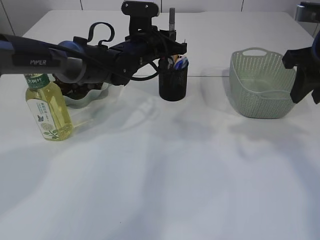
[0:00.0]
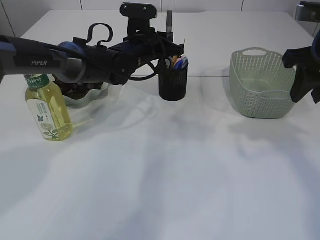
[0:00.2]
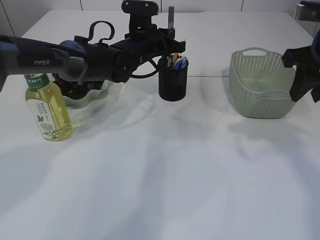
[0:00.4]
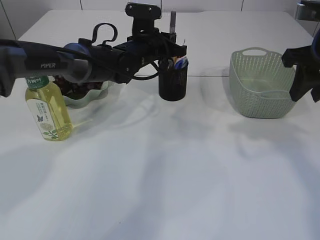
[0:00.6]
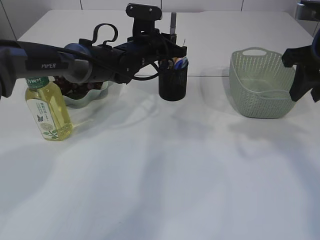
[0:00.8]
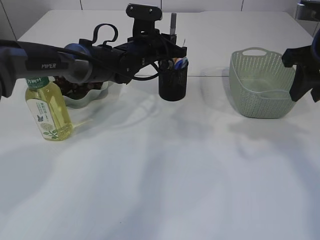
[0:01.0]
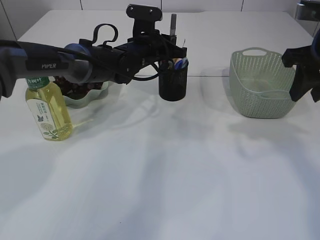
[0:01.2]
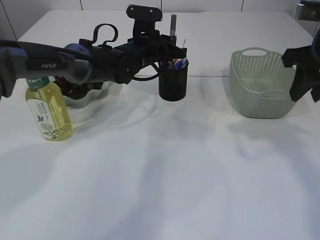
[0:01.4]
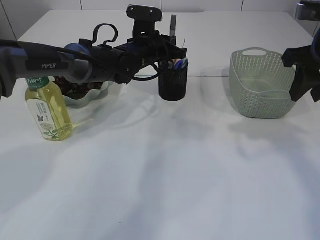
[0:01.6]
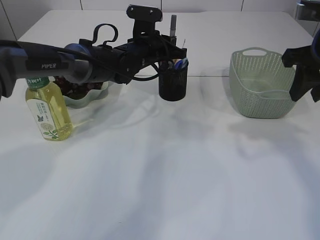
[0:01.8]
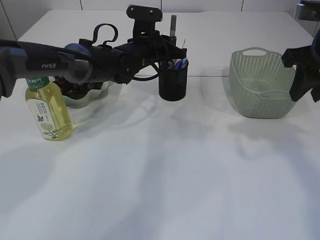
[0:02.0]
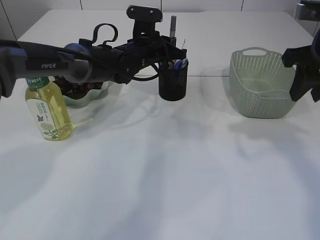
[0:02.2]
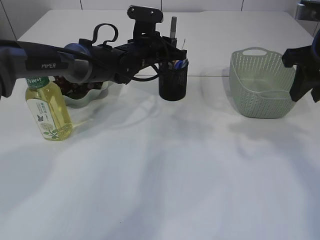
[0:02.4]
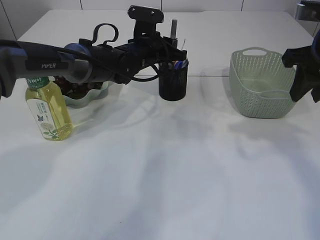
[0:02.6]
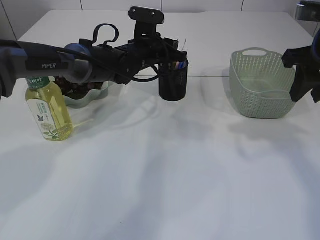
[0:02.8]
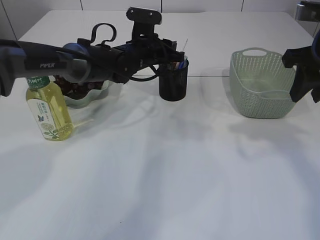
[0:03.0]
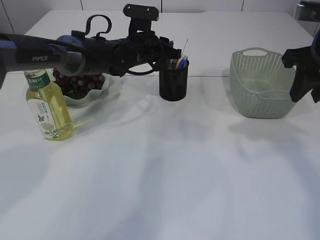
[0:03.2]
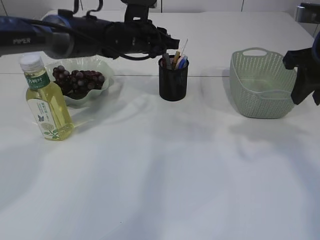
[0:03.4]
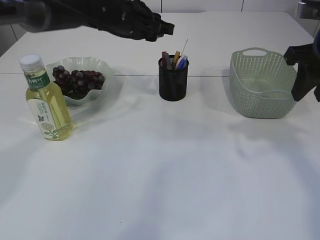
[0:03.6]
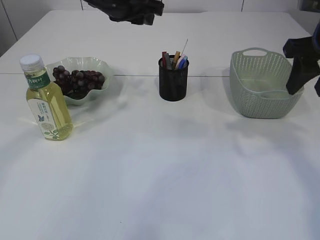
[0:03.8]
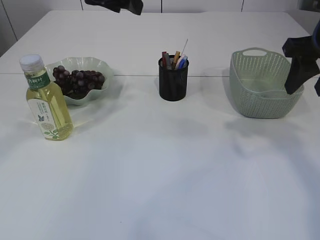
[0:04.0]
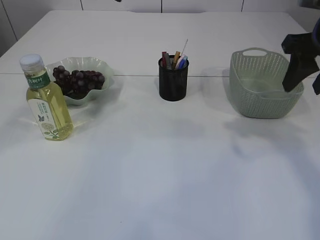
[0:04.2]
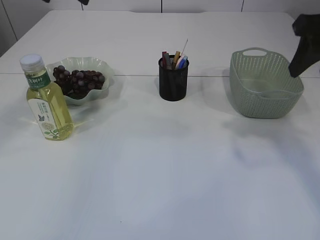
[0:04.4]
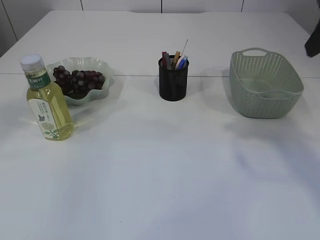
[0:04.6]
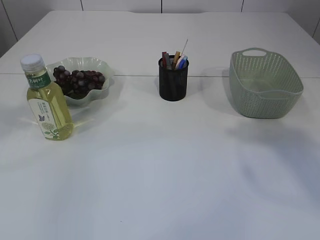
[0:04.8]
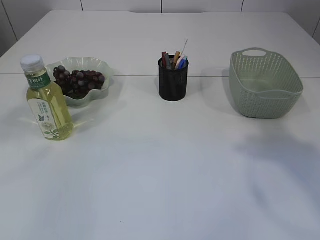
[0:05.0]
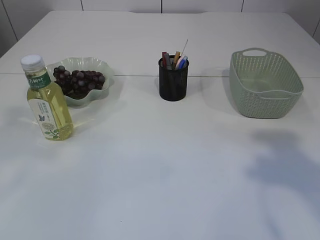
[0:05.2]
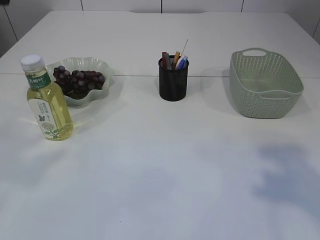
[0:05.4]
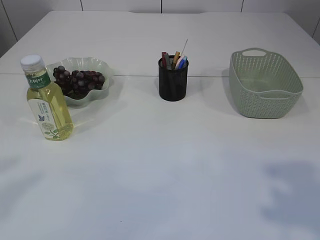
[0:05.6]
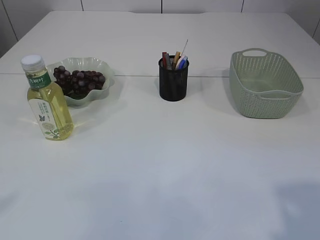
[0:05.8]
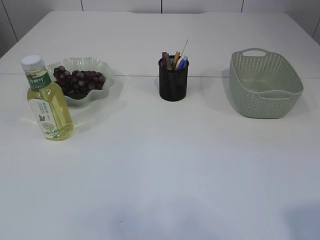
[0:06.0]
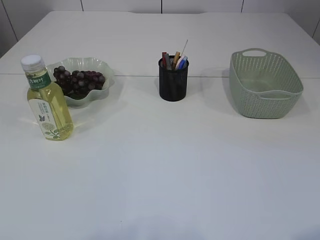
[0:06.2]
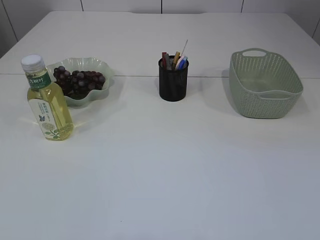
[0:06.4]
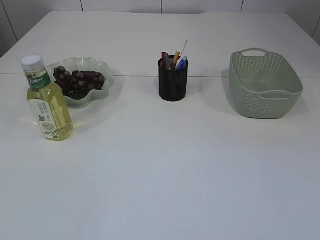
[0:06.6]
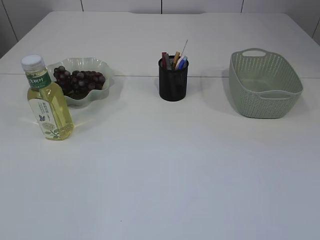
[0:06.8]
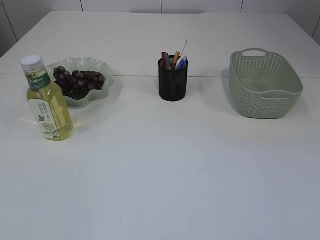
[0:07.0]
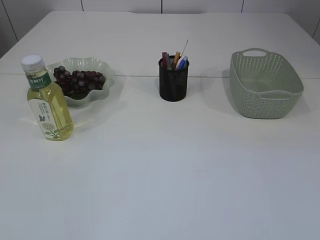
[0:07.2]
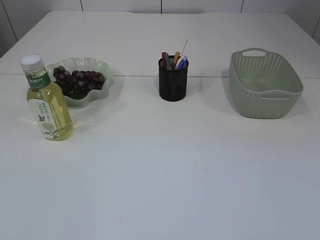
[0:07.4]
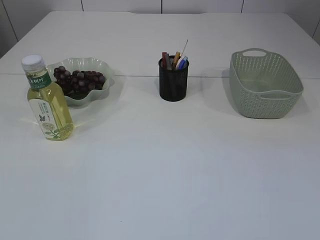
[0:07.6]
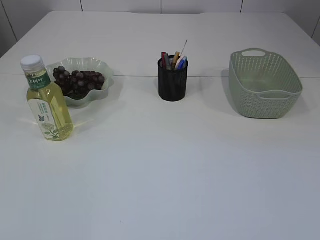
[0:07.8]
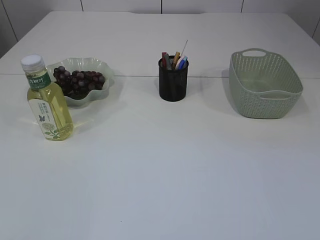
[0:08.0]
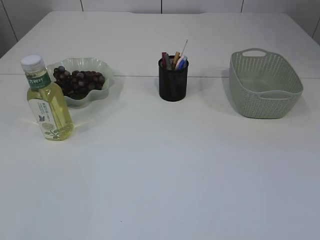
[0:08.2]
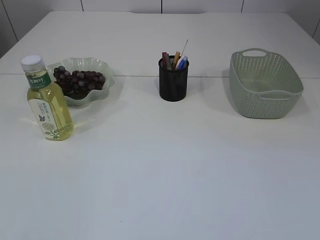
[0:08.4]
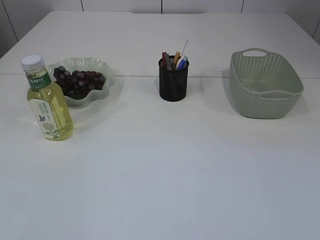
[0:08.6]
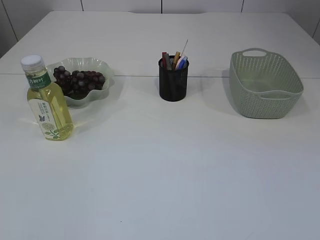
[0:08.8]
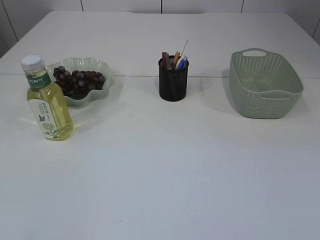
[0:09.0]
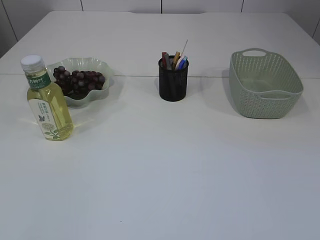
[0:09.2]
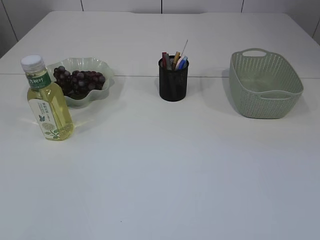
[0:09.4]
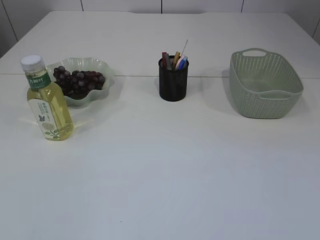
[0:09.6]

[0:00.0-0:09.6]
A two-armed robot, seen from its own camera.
Step, 0.0 to 3.4 s: place the silver glue into the pen holder.
0.0 to 1.6 s: The grippers move only a little.
1.6 to 3.2 s: The left gripper opens up.
3.2 to 4.8 s: The left gripper heads upward, backward and to the left, covering approximately 35 cm, and opens up. Meanwhile the right gripper heads upward and backward, covering approximately 15 cm.
4.8 to 6.4 s: The right gripper travels backward and downward by about 25 cm.

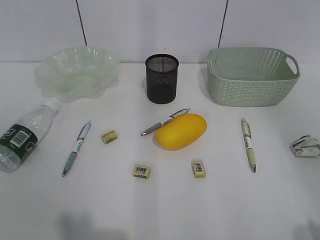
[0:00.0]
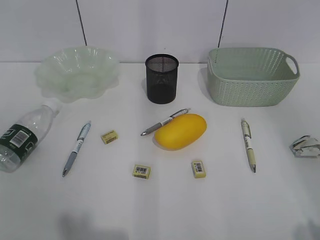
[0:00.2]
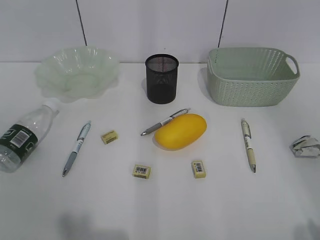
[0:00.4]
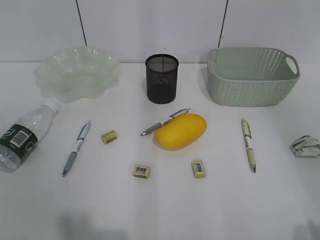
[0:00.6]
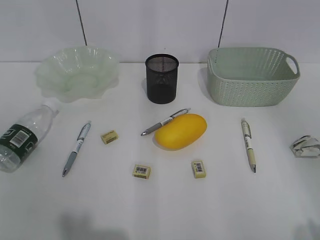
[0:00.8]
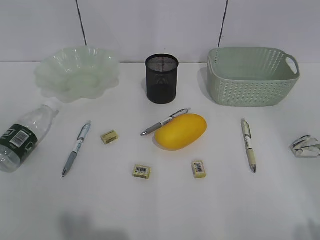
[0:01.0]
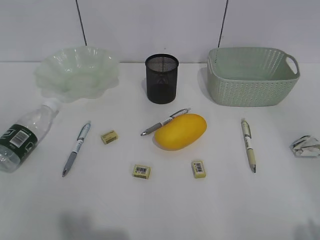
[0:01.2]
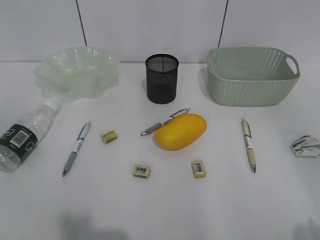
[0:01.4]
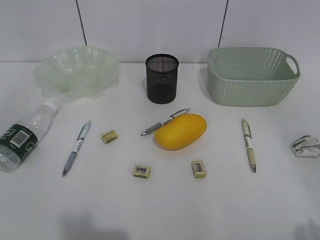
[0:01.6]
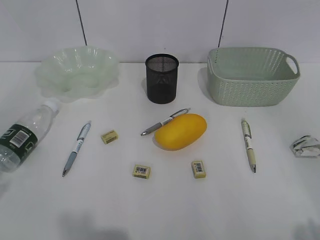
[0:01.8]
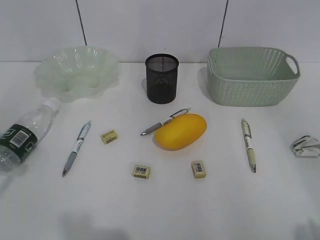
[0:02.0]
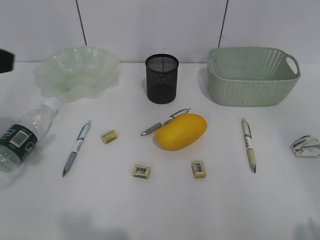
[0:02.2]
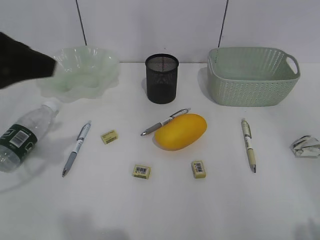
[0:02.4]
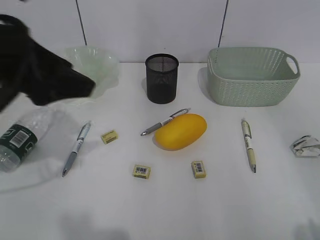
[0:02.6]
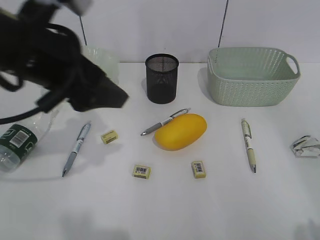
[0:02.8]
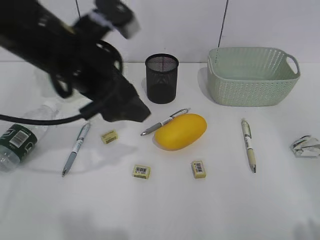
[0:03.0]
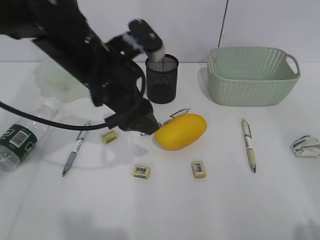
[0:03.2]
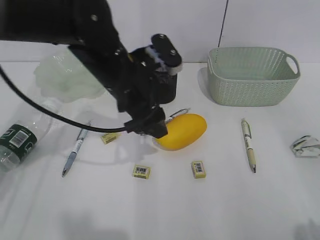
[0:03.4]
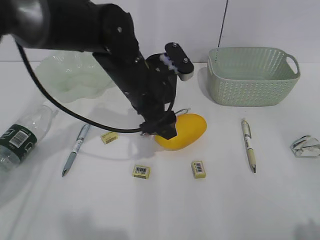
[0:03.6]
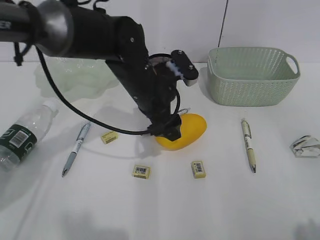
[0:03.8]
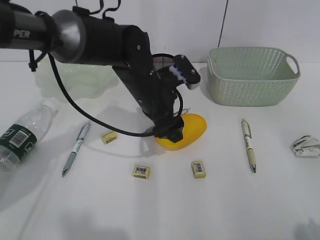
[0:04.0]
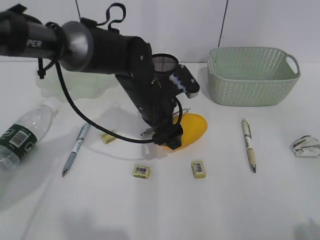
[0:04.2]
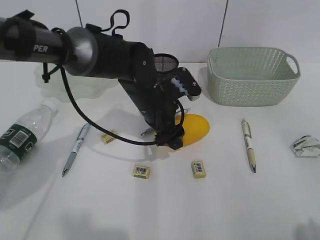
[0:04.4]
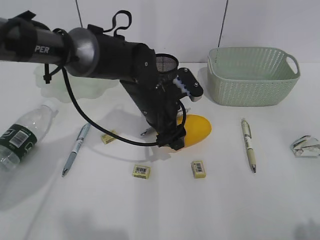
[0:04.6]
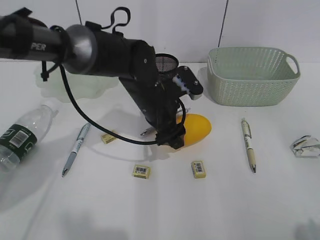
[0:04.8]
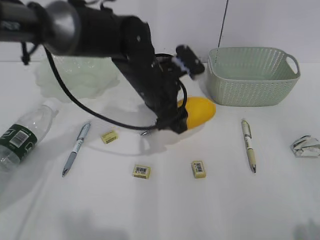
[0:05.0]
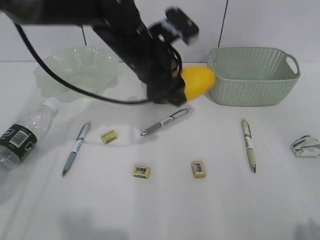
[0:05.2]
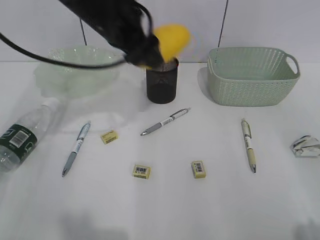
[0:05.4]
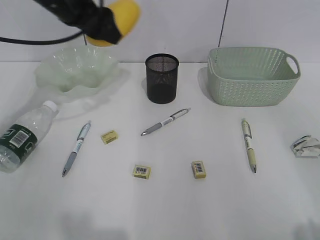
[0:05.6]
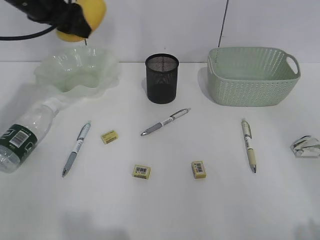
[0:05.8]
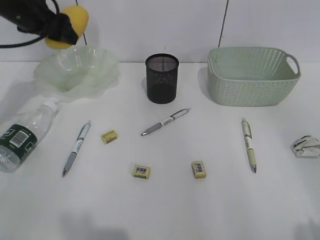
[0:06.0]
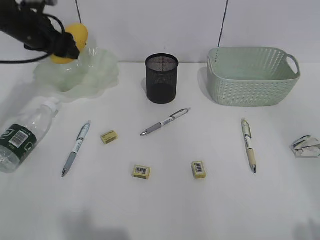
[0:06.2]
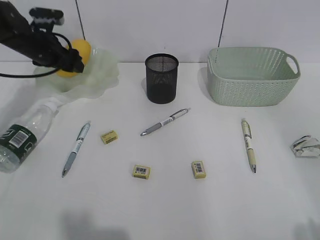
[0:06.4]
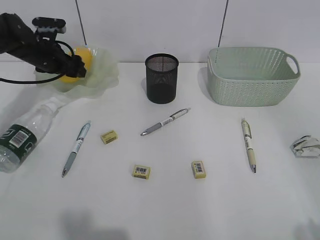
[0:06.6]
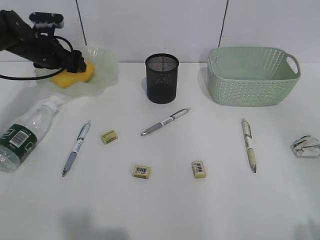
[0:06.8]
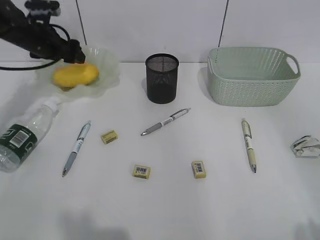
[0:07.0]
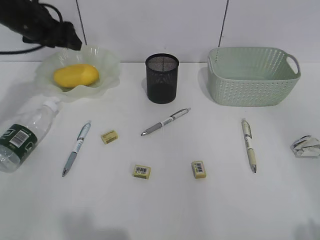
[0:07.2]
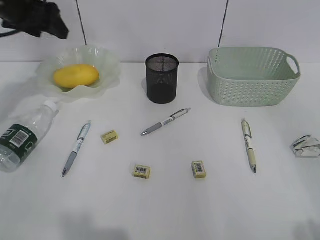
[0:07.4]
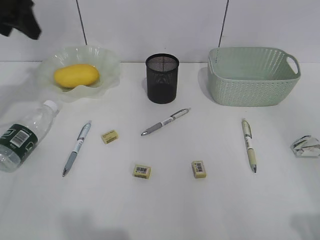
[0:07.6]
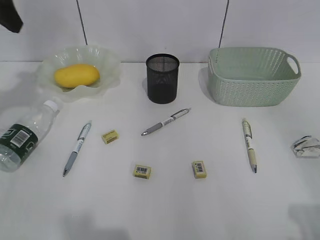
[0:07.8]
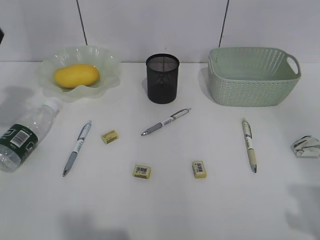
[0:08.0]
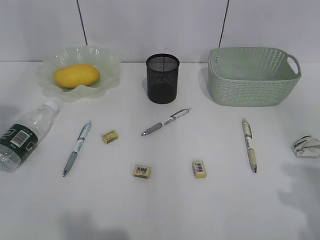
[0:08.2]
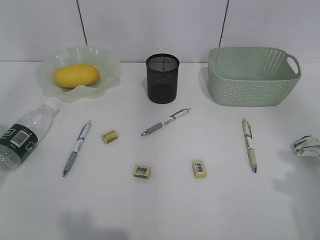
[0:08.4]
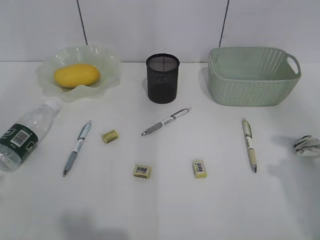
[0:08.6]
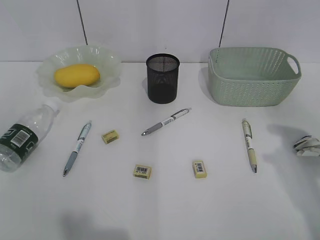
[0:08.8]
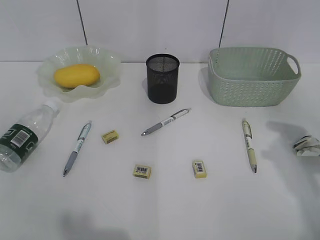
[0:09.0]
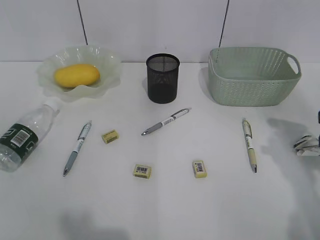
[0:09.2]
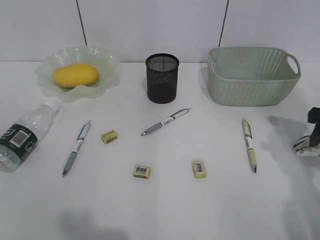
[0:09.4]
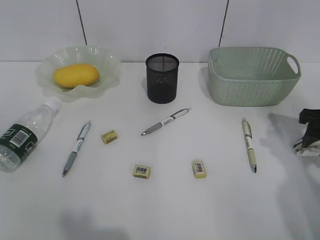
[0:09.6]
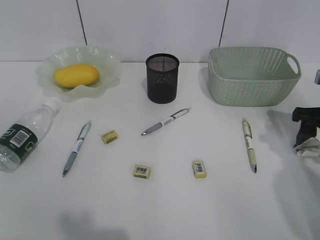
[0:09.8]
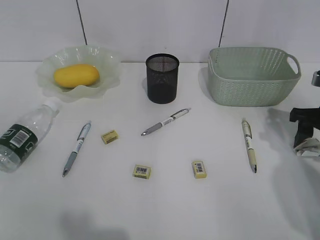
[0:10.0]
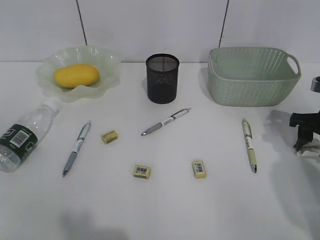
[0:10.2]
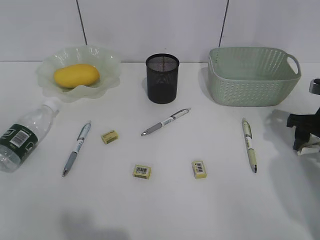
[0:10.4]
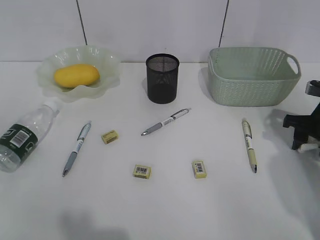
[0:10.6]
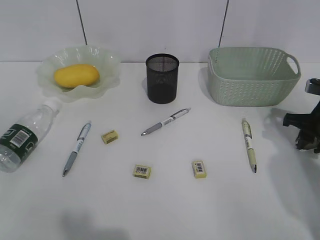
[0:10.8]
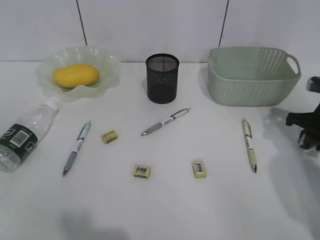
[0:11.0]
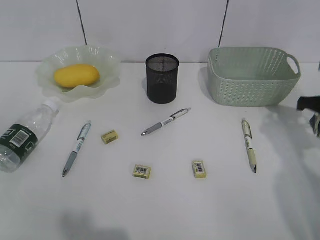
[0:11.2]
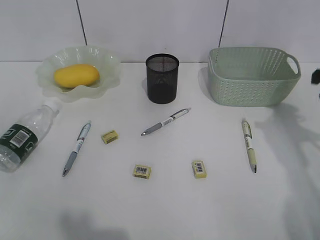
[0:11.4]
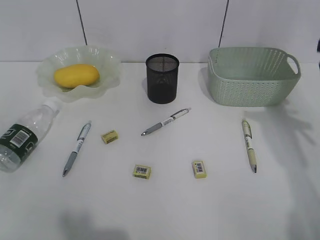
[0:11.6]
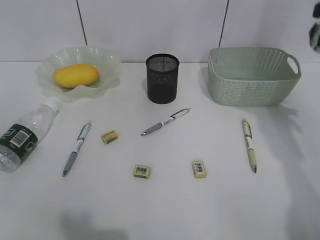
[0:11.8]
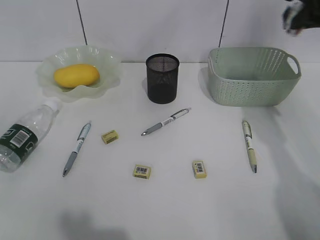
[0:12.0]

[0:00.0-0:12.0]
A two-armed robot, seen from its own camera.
Step, 2.2 to 4.6 s: Grasp the mango with left gripper.
Step, 4.8 to 7.0 s: Place the mango in the plate with left gripper.
Step, 7.2 to 11.0 s: Grasp the waste paper with right gripper.
1.6 to 3.0 s: The left gripper is displaced to the right and forward by some 30 cm.
3.0 to 4.4 s: The left gripper shifts roughly 20 cm downward, to the right and forward.
4.4 to 6.0 s: The left gripper goes approximately 30 cm to the left, upward and forward.
6.0 to 7.6 s: The left gripper shifts some 10 cm upward and backward.
7.6 to 9.0 s: The left gripper heads backward, covering approximately 40 cm. The right gripper travels forward by about 25 cm.
9.0 to 10.4 s: The right gripper goes about 15 cm downward and forward.
10.4 to 12.0 s: The right gripper shifts about 20 cm upward, and closes its fingers.

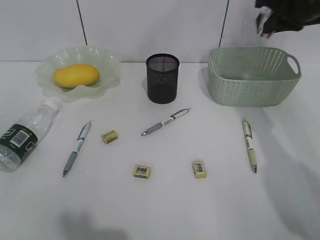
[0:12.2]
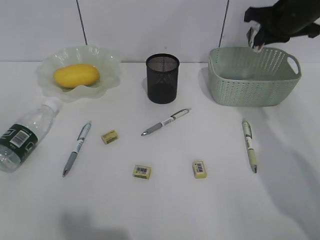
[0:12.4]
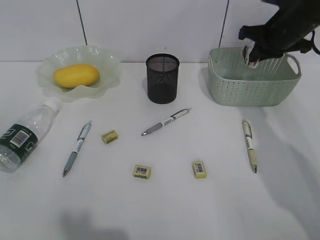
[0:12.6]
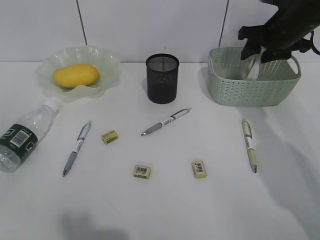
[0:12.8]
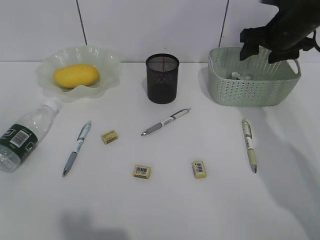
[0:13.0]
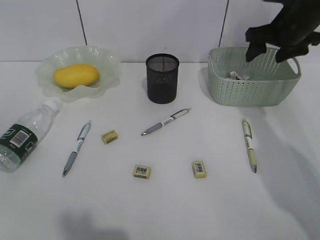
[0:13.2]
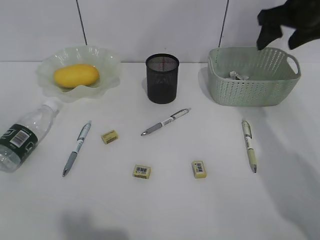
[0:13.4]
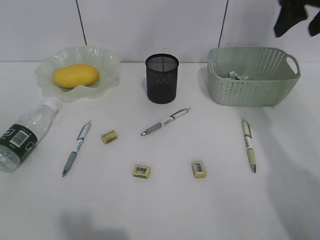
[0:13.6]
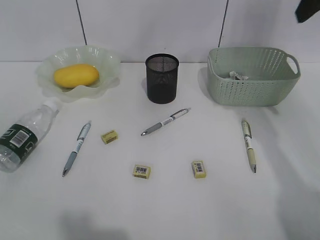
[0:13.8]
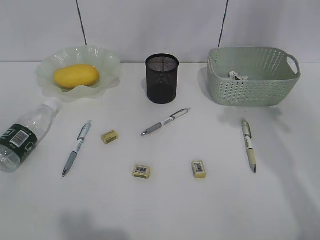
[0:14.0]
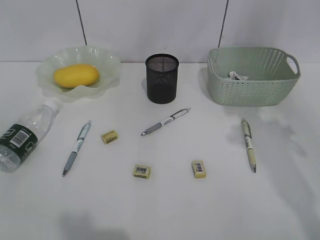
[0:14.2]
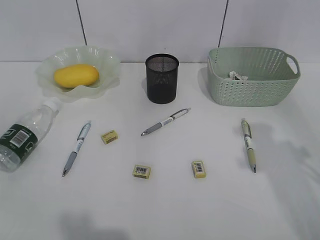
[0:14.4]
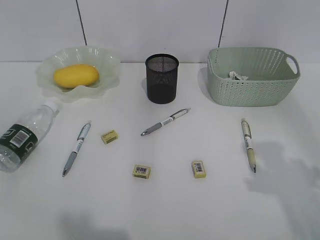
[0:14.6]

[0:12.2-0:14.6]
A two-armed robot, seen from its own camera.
12.2 to 13.4 s: The right gripper opens its fingers.
13.4 to 14.6 s: The right gripper is displaced backward by roughly 30 cm.
